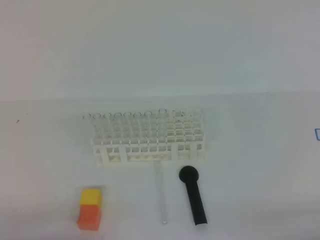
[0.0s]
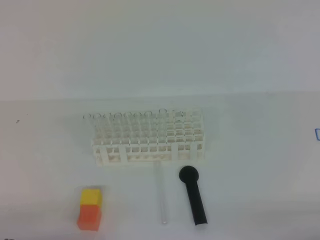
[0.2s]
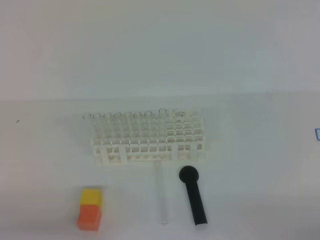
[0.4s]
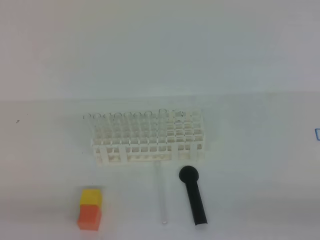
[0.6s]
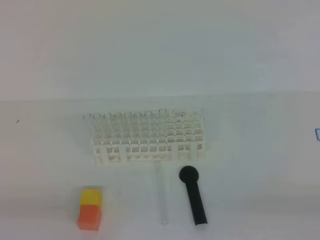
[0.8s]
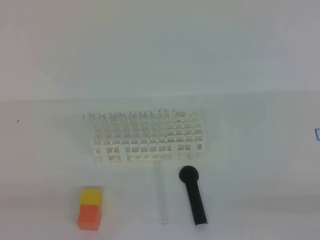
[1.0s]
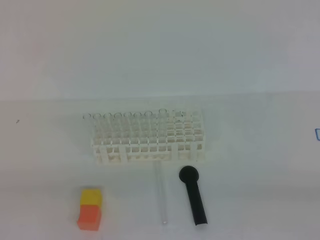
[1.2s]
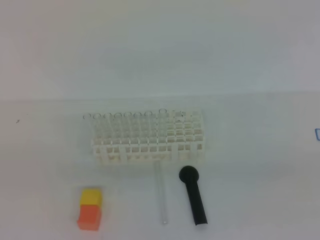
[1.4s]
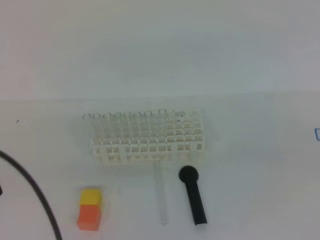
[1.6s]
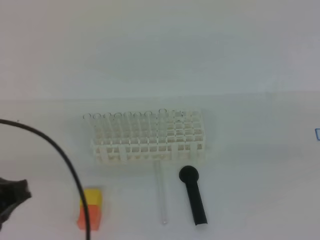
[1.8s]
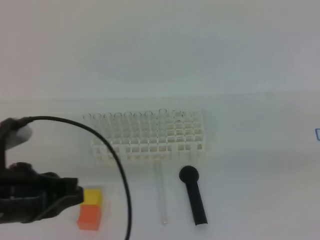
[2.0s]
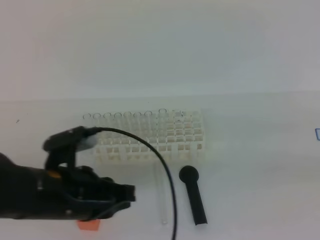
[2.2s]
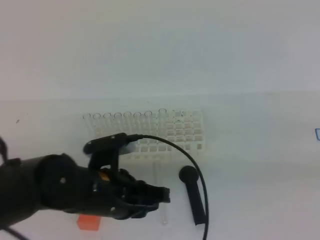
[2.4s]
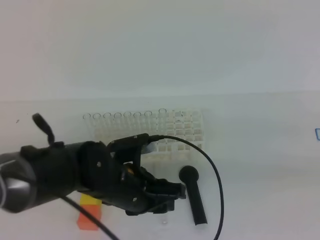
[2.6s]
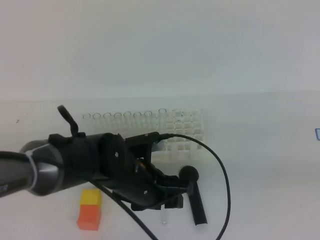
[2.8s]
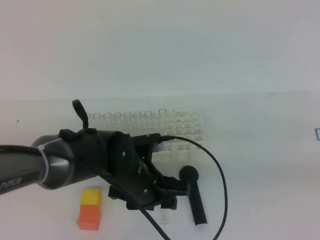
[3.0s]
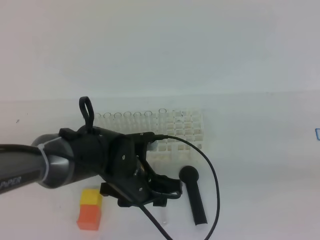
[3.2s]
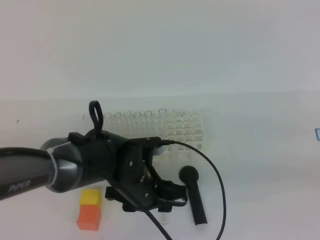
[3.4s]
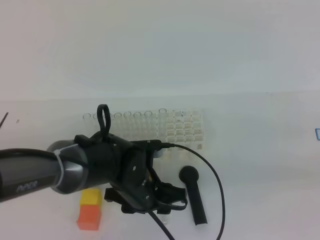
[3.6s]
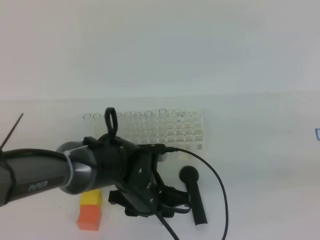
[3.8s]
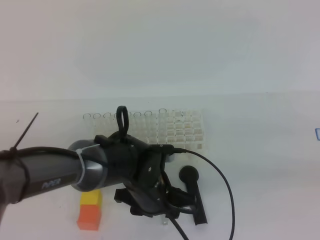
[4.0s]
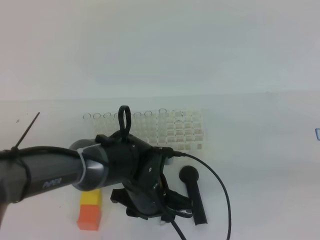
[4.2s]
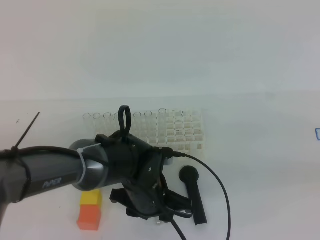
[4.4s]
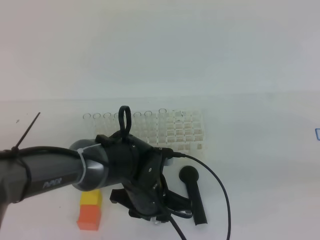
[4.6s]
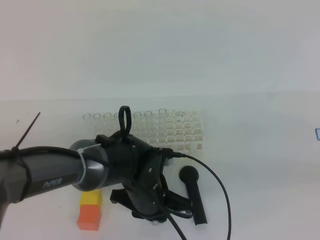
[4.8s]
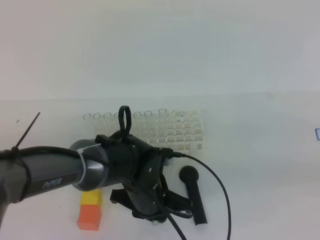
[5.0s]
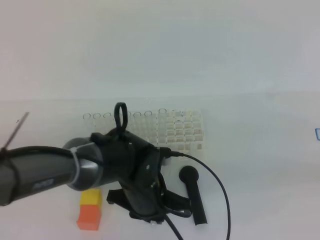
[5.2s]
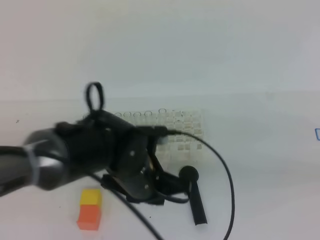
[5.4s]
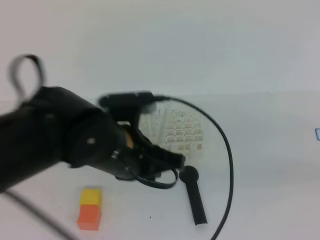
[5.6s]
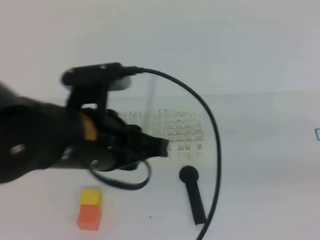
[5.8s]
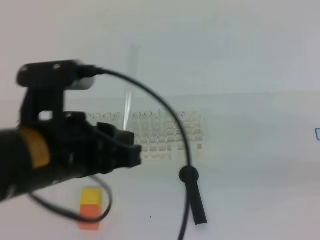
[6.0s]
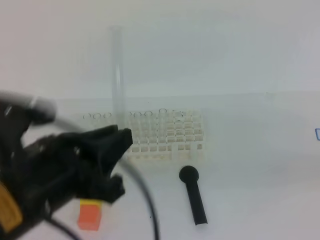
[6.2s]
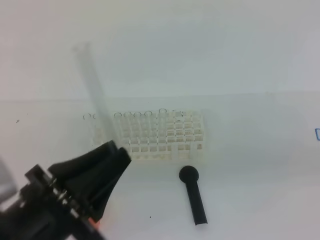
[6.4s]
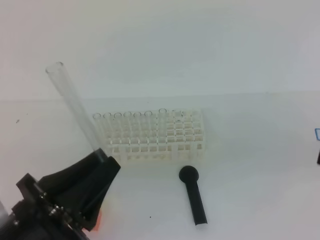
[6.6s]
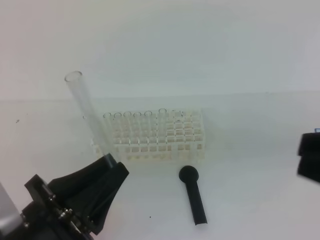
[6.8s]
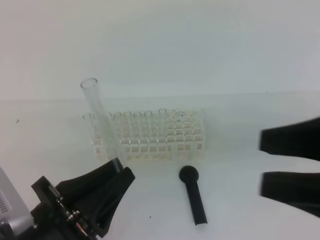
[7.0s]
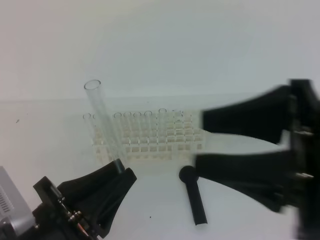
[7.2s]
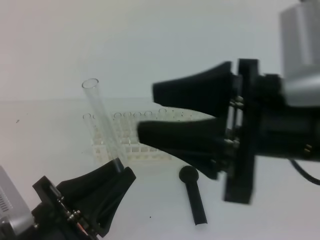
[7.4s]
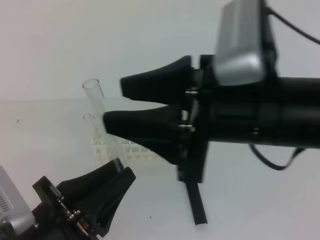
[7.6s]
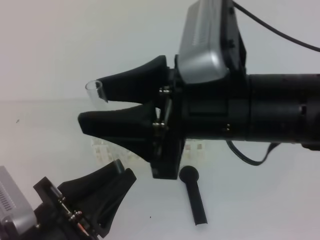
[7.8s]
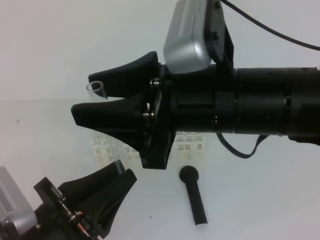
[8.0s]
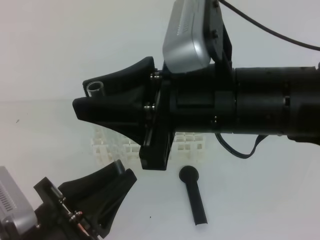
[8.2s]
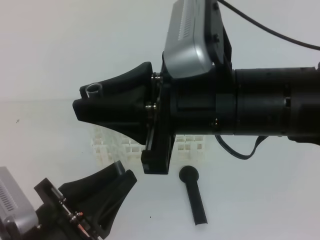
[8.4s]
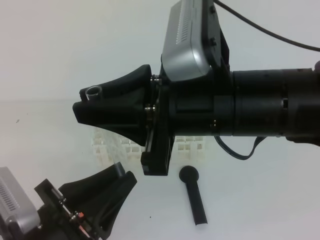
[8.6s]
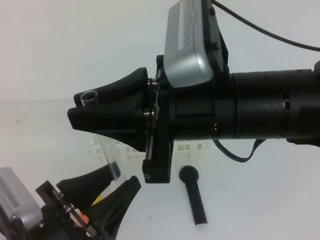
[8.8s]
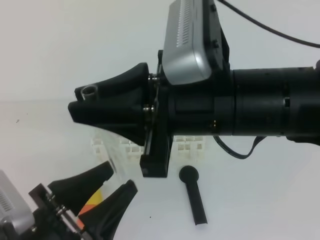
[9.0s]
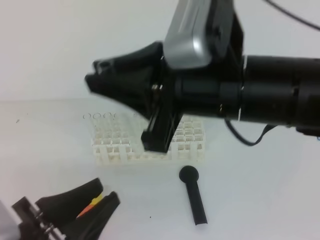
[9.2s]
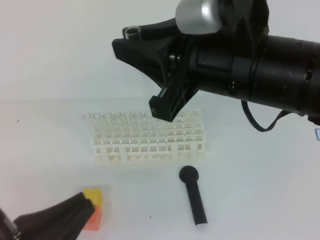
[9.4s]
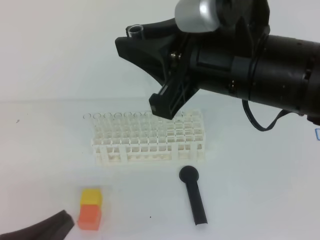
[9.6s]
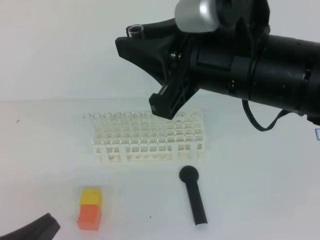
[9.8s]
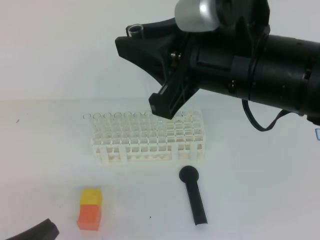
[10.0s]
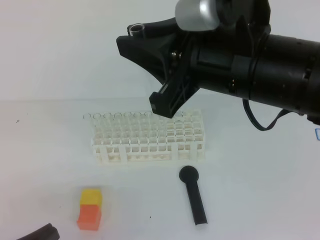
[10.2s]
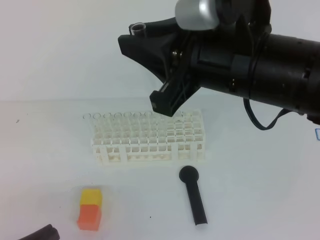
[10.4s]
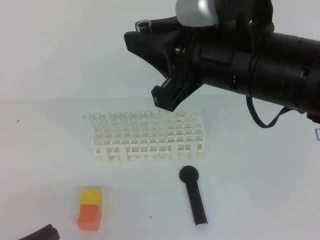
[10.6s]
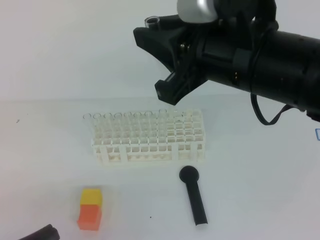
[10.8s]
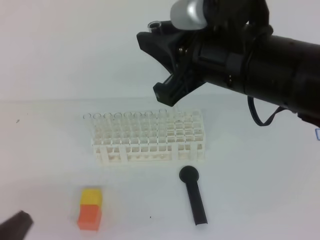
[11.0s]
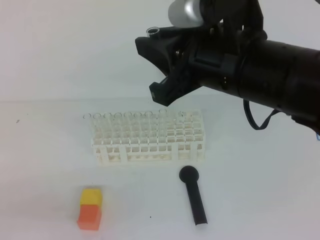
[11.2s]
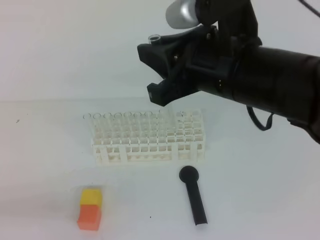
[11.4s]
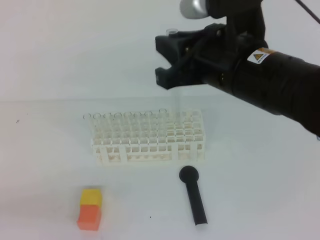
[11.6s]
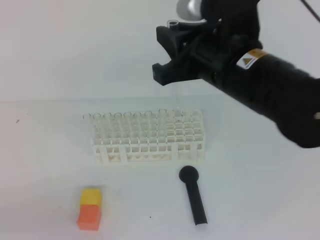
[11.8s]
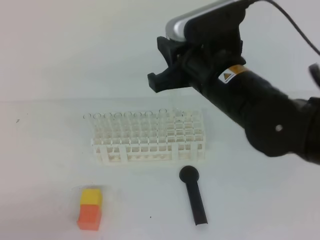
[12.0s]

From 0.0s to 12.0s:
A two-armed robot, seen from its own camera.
From 0.0s to 1.6s: Both grippers move upward, approximately 15 cm.
From 1.6s to 3.0s: The left gripper moves to the right, forward and downward, roughly 30 cm, and opens its fingers.
From 3.0s to 4.4s: The grippers stay close to where they were, moving slightly.
From 4.4s to 6.0s: The left gripper is displaced upward, to the left and backward by approximately 25 cm, and closes its fingers.
From 6.0s to 7.6s: The right gripper shifts approximately 20 cm to the left, and opens; the left gripper heads downward and backward, covering roughly 10 cm.
From 7.6s to 9.0s: The right gripper closes up; the left gripper opens up.
From 9.0s to 10.4s: The left gripper heads to the left, covering roughly 5 cm, and closes.
From 10.4s to 12.0s: The left gripper heads to the left, covering approximately 5 cm. The right gripper goes approximately 10 cm forward and downward.

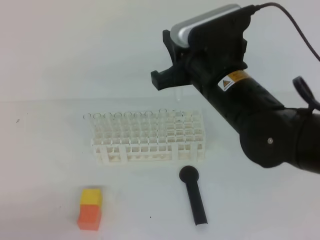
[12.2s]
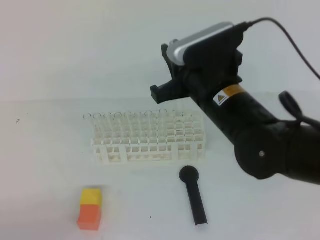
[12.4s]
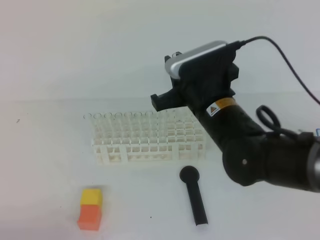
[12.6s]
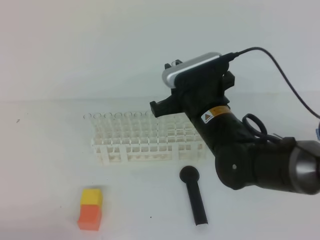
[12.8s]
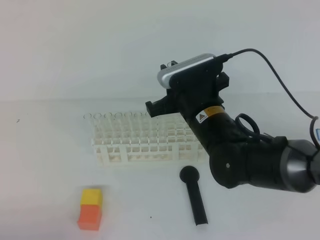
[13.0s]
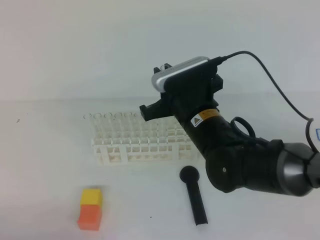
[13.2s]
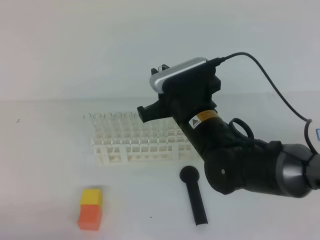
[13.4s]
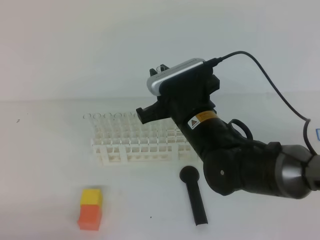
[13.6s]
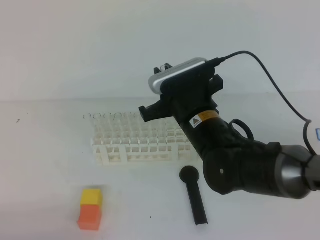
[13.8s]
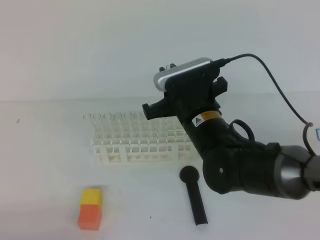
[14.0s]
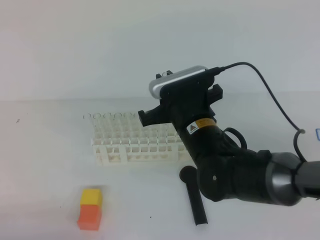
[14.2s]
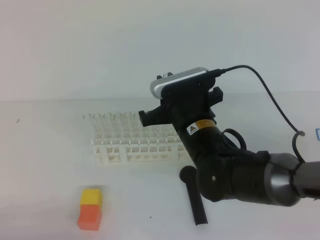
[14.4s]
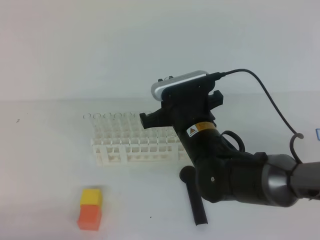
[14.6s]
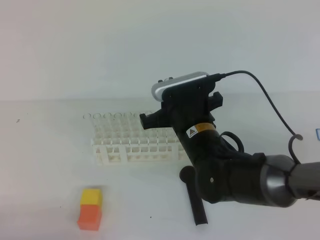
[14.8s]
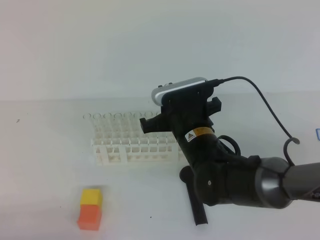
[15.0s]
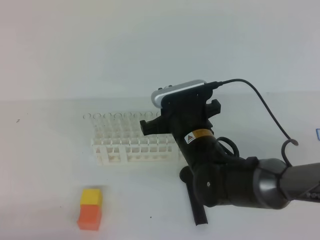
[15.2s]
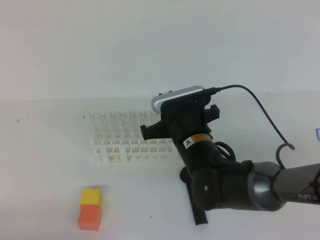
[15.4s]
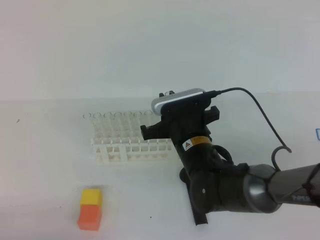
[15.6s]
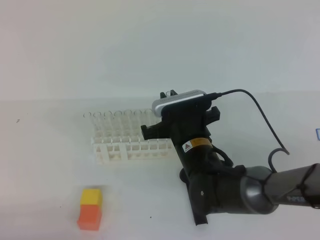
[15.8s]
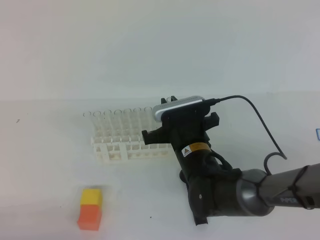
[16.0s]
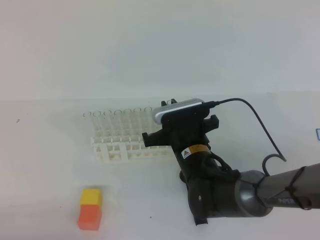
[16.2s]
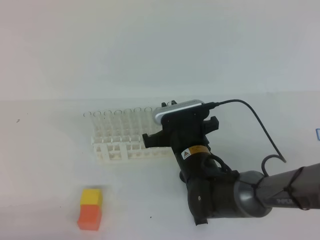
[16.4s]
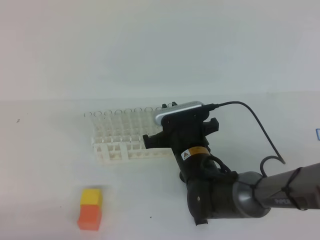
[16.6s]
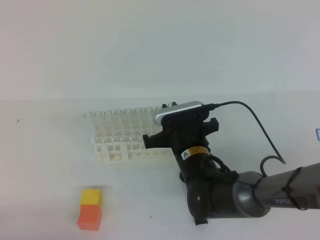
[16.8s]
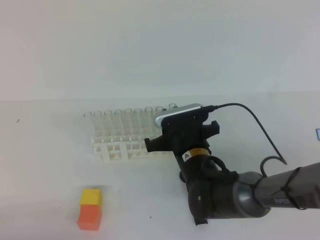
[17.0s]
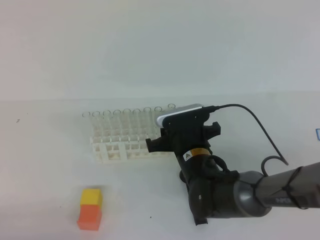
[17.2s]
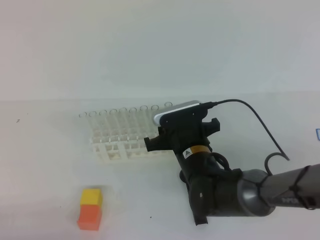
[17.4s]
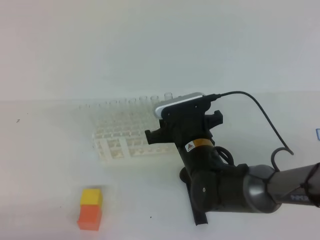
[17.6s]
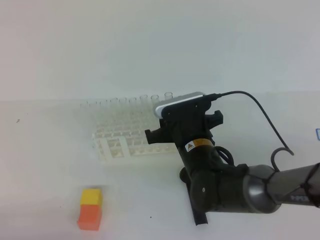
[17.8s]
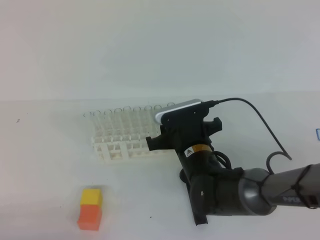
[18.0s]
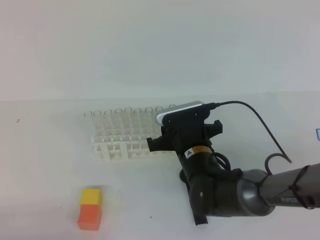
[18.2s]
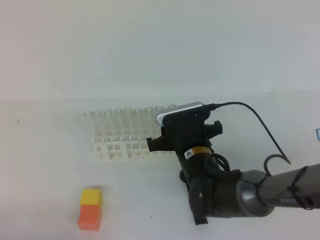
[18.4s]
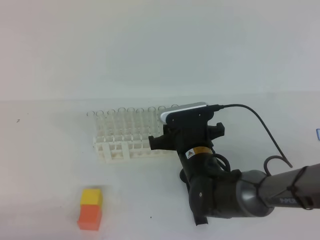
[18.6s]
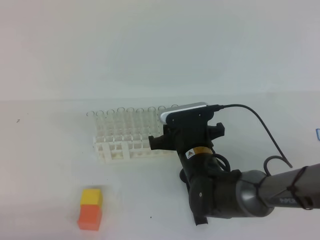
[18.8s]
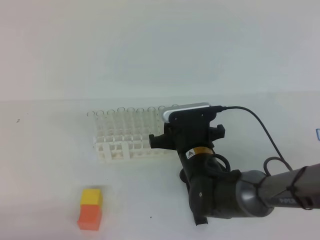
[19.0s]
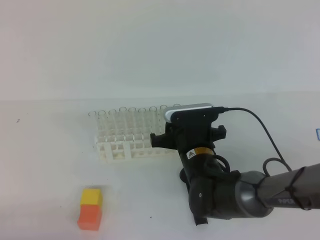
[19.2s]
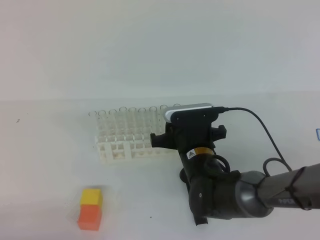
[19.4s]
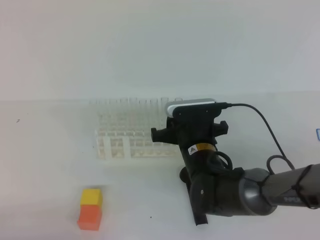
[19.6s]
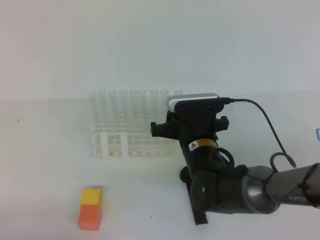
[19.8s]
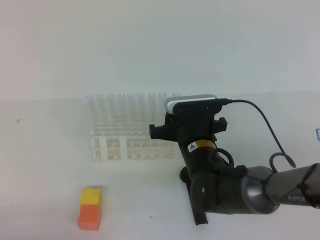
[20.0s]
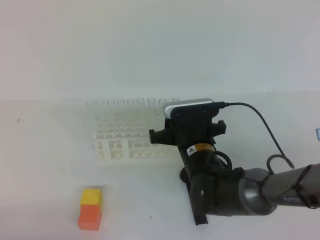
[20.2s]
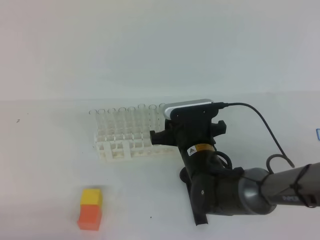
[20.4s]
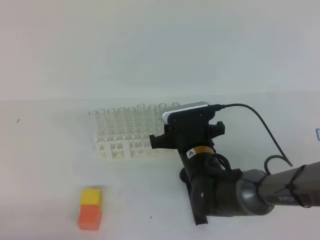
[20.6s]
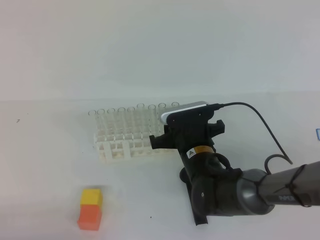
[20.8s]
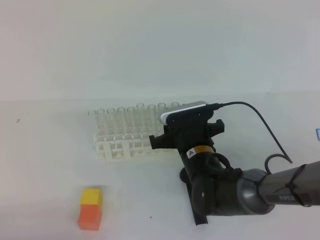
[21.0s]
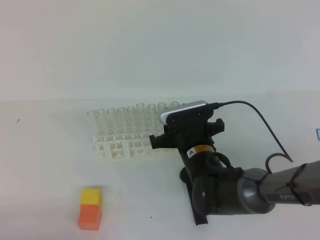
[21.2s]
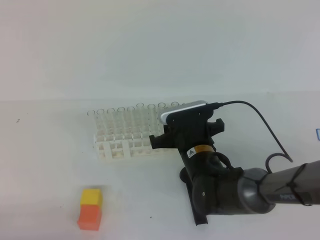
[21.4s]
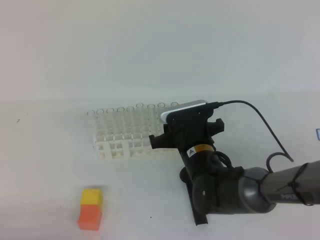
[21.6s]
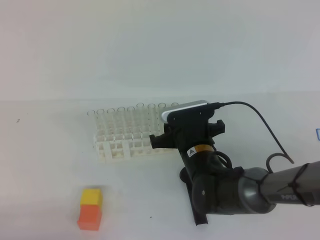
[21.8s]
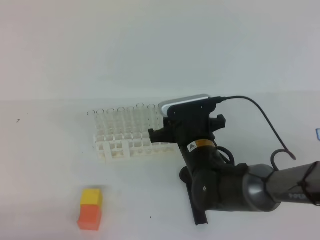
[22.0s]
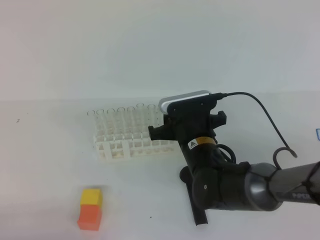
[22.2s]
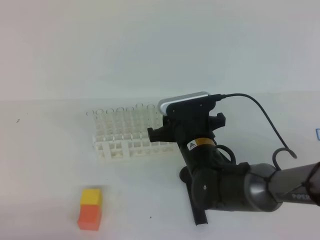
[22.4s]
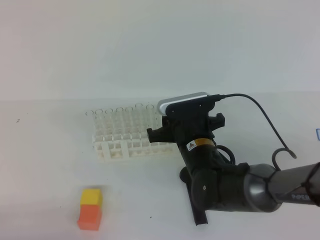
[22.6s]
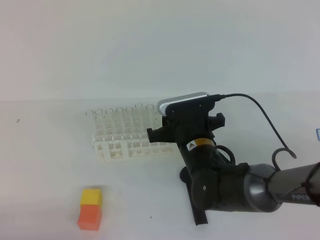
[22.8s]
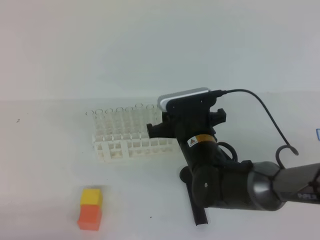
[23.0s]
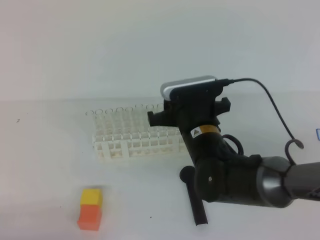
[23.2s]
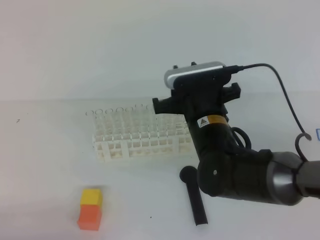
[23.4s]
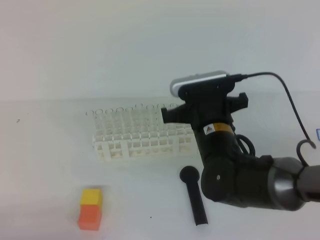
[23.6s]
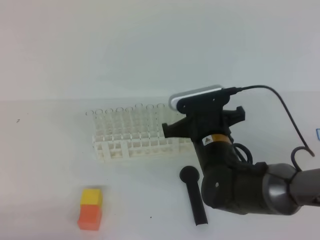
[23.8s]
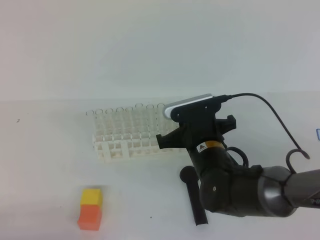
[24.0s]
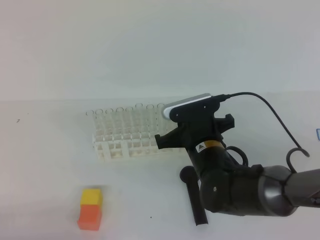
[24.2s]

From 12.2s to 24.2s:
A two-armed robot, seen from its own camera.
From 12.2s to 13.8s: The right gripper moves downward, about 10 cm.
From 13.8s to 15.2s: There are only small adjustments of the grippers.
From 15.2s to 16.6s: The right gripper moves about 5 cm.
From 16.6s to 18.2s: The right gripper opens.
From 18.2s to 22.6s: The grippers make only small movements.
From 22.6s to 24.2s: The right gripper closes up.
